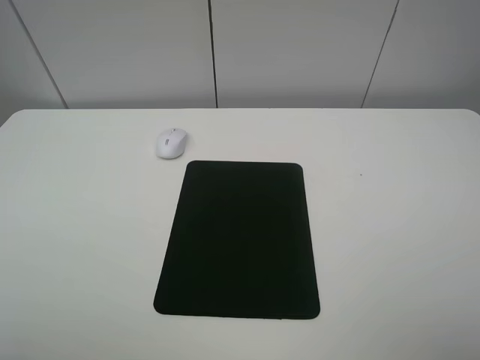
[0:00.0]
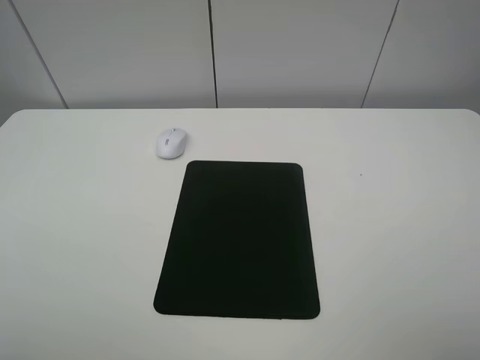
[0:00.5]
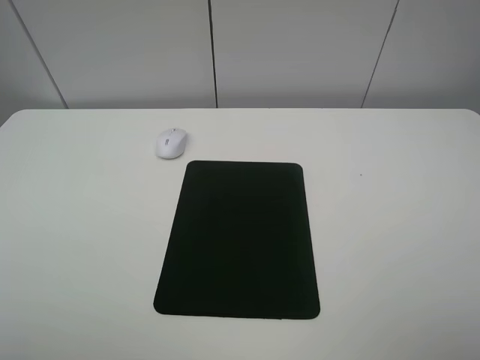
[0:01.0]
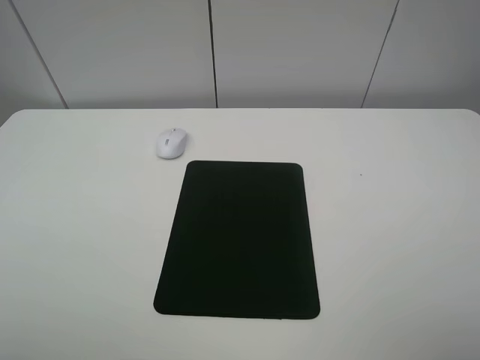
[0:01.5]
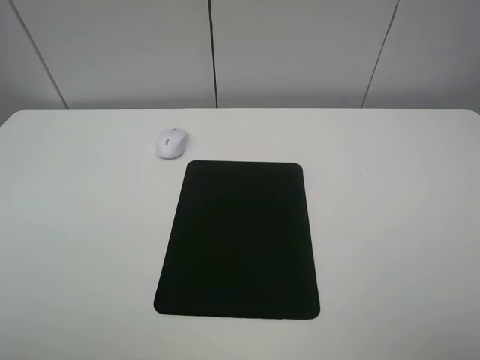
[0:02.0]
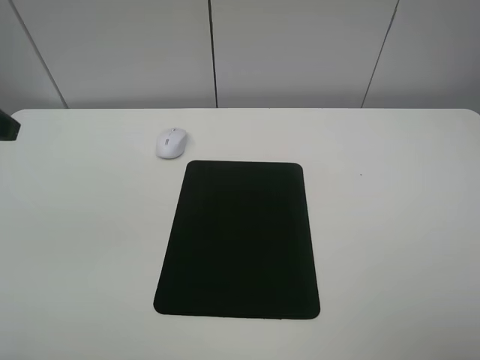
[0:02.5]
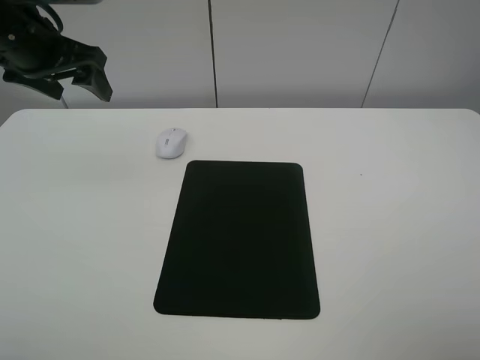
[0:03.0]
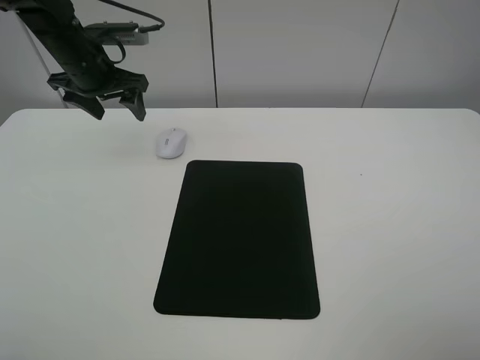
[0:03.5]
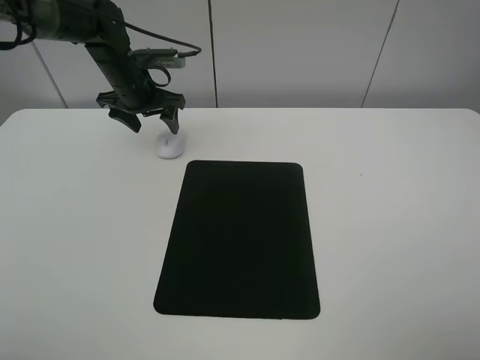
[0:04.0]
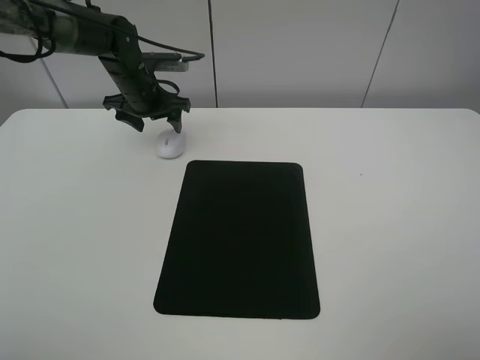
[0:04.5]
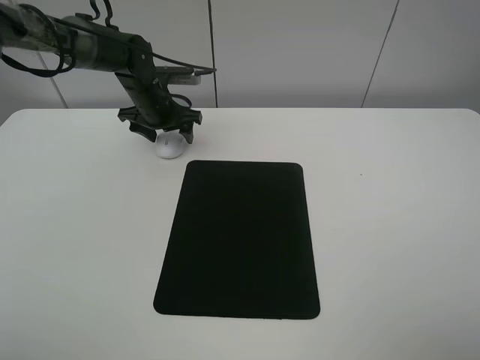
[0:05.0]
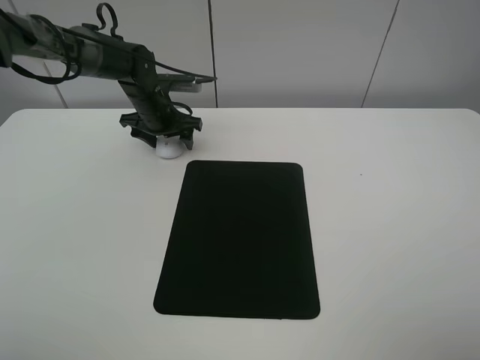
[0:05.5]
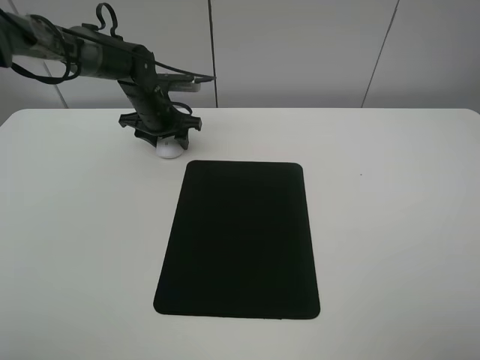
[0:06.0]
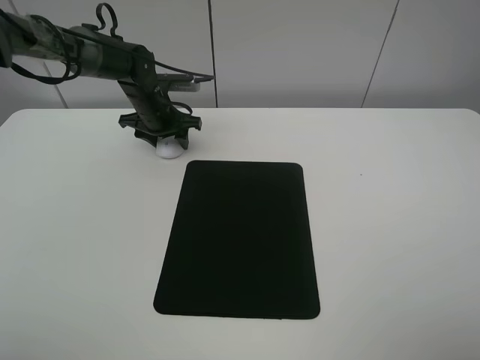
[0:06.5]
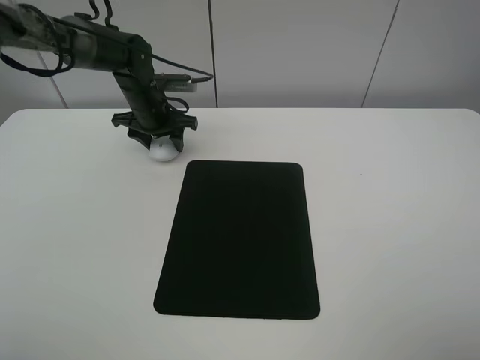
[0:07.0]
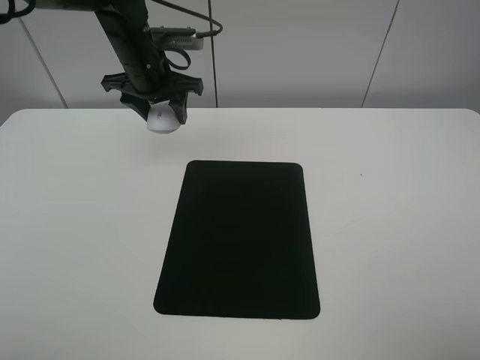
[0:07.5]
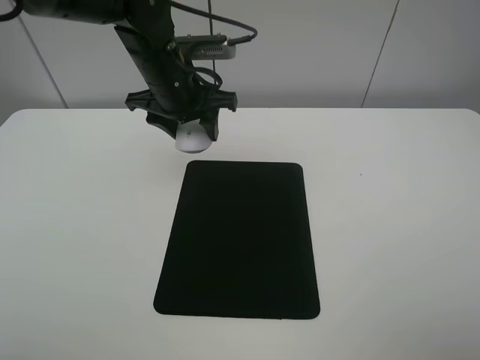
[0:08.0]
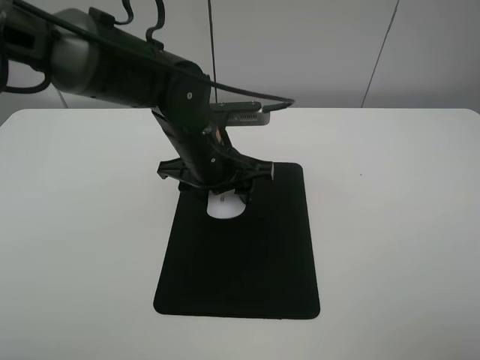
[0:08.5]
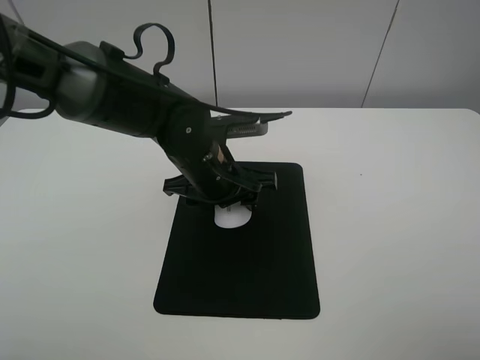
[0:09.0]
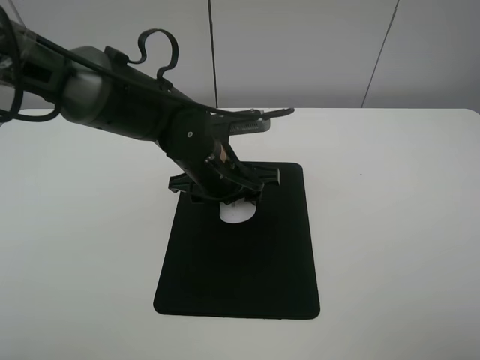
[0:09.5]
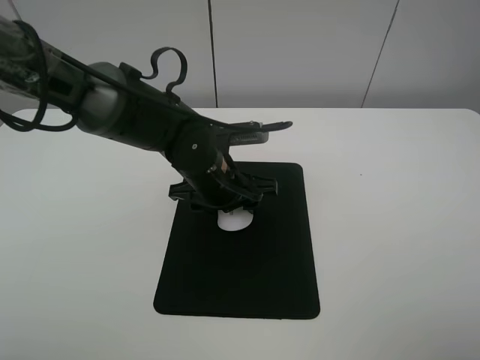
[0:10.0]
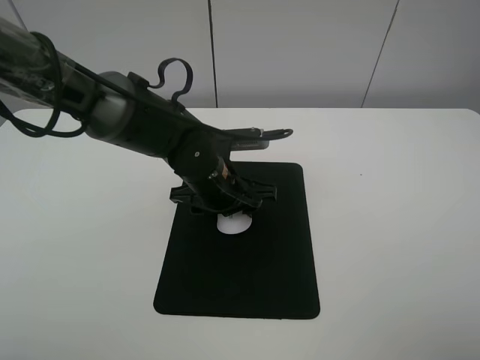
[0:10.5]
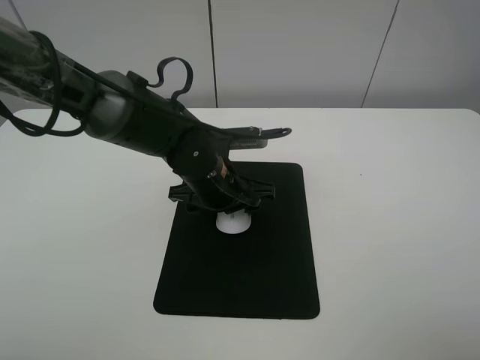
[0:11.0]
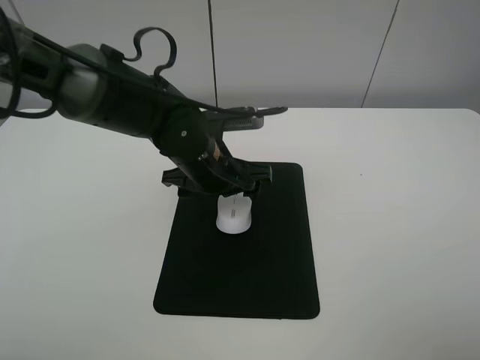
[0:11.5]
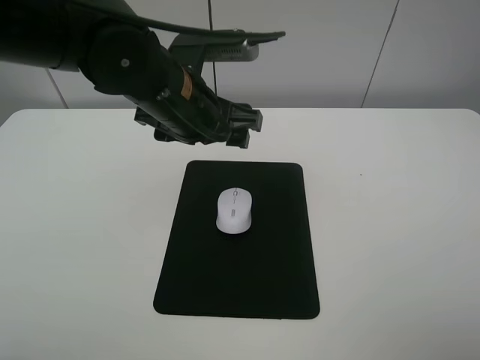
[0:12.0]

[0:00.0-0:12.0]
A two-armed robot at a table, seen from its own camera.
Step, 0:00.0 to 0:06.5: Grasp the mouse with the left gripper.
Step, 0:07.0 to 0:11.0: Place the mouse on the mouse mat with the left gripper.
0:02.0 to 0:04.0: The left gripper heads forward, covering roughly 40 cm.
0:04.0 to 0:06.0: The left gripper heads downward, covering about 5 cm, and closes up.
0:06.0 to 0:08.0: The left gripper moves backward, upward and to the right, approximately 20 cm.
0:08.0 to 0:10.0: The left gripper shifts roughly 15 cm downward and backward.
0:10.0 to 0:12.0: The left gripper shifts approximately 10 cm upward, and opens its fingers.

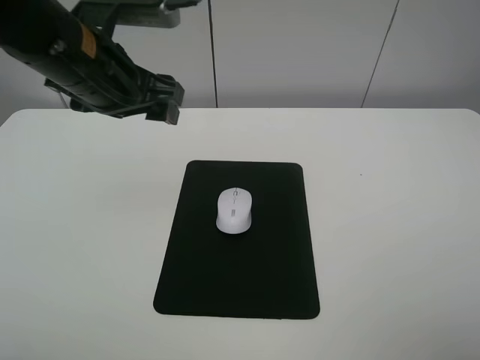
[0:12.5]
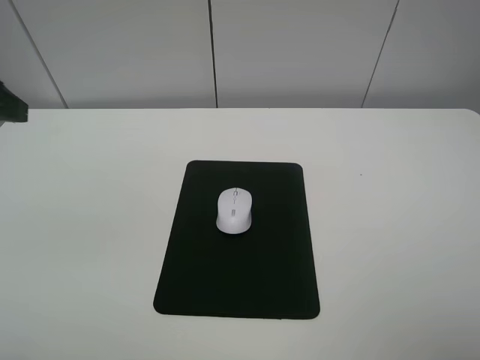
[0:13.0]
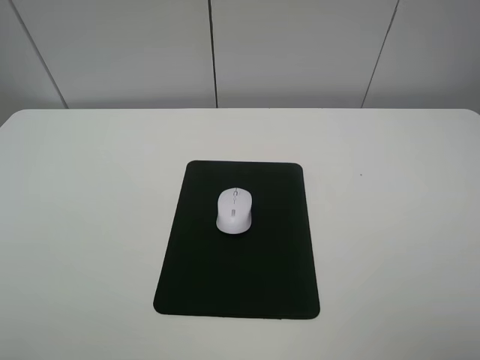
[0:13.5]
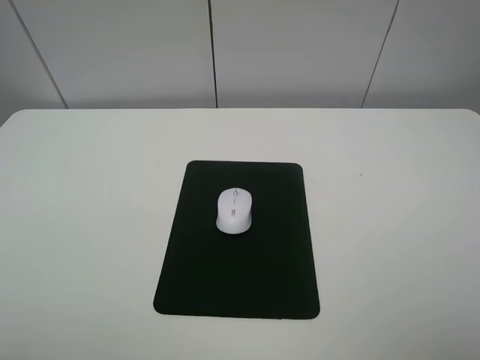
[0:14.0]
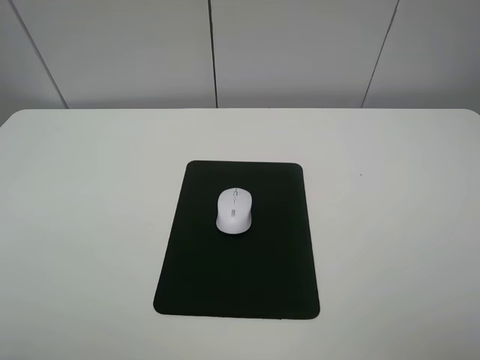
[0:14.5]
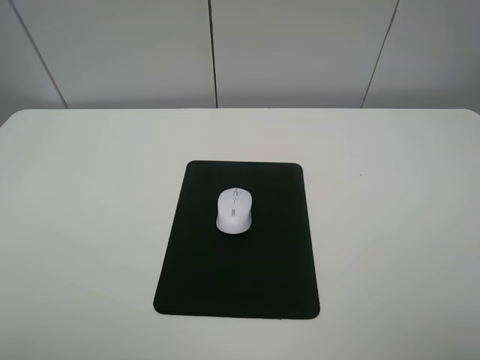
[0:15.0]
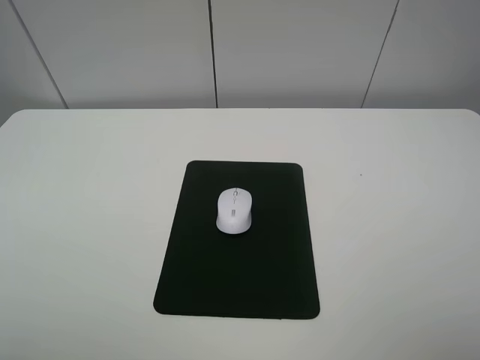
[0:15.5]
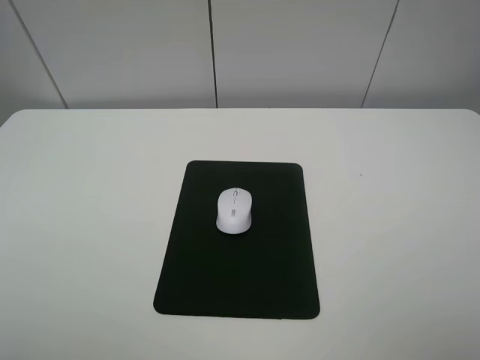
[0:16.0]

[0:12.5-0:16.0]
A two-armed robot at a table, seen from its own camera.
0:12.5 to 0:14.5: The left gripper moves backward and to the left, about 30 cm.
